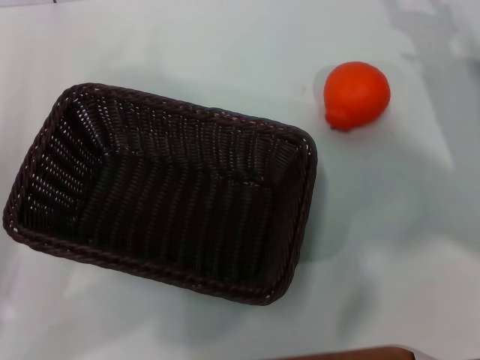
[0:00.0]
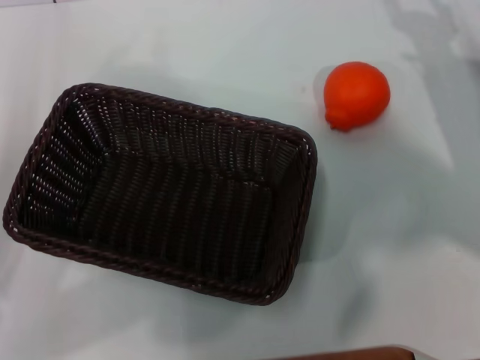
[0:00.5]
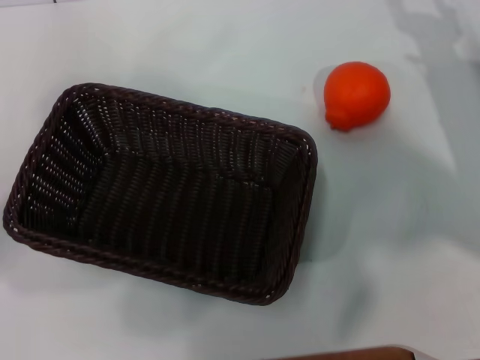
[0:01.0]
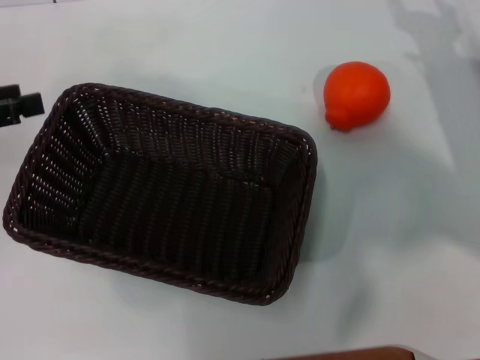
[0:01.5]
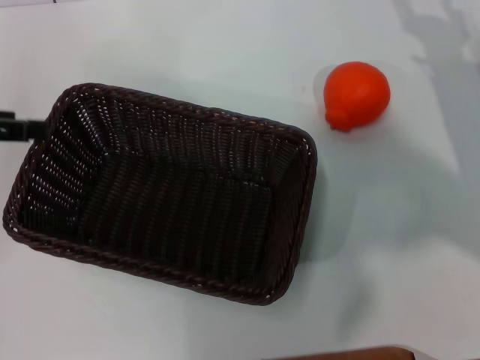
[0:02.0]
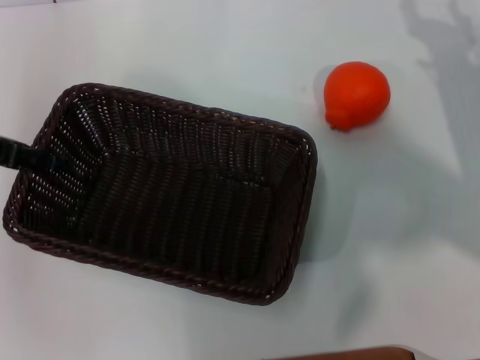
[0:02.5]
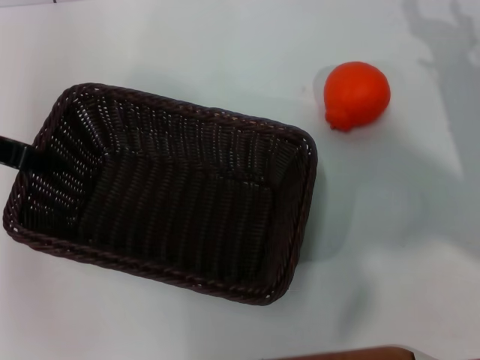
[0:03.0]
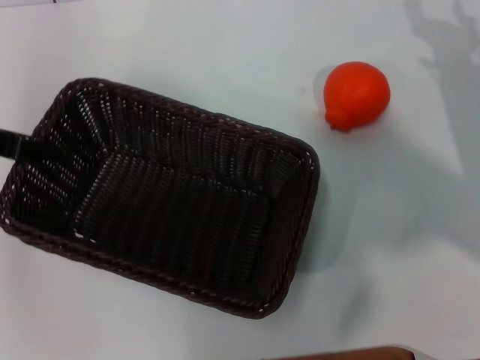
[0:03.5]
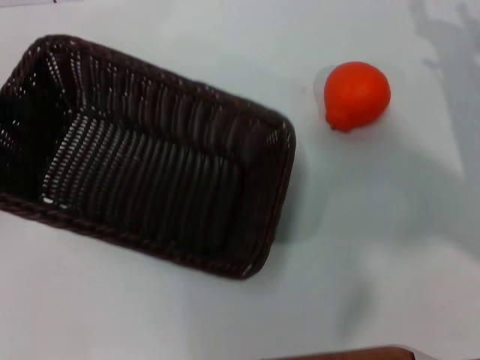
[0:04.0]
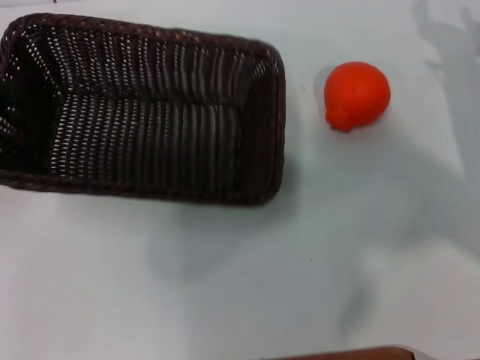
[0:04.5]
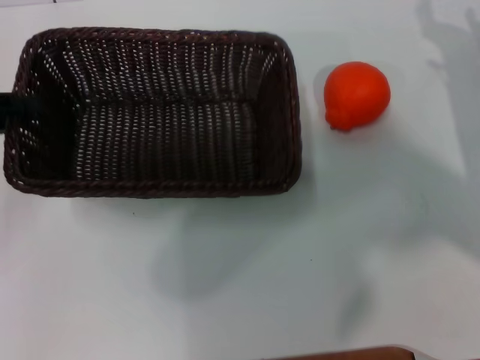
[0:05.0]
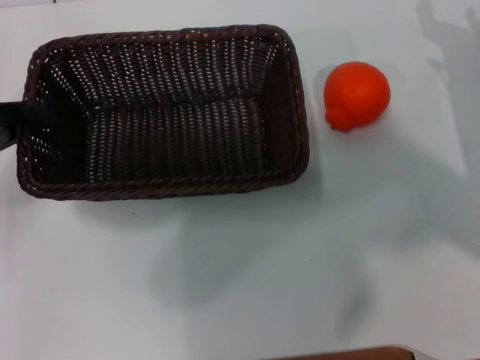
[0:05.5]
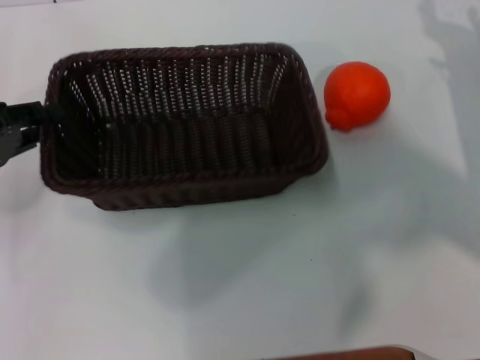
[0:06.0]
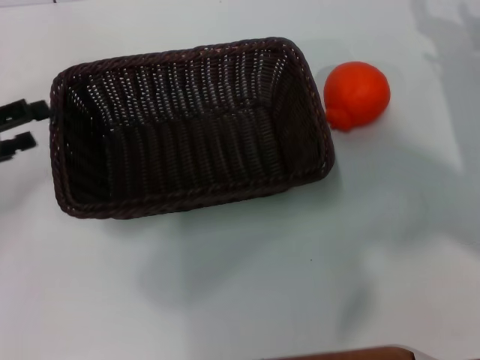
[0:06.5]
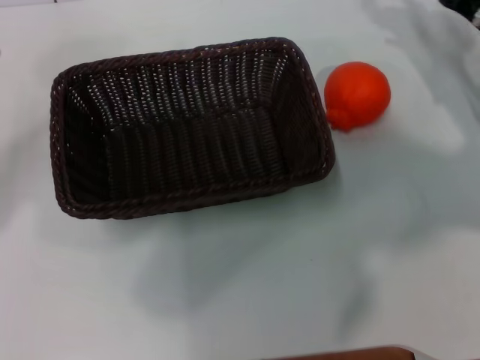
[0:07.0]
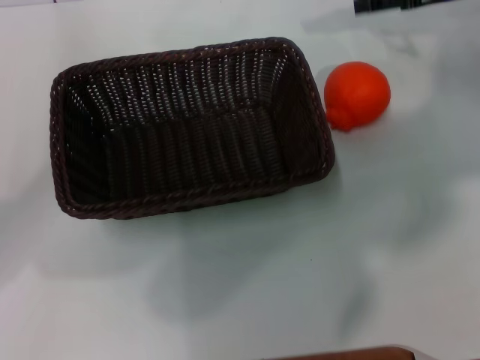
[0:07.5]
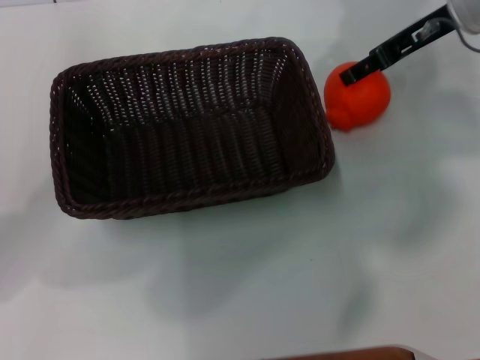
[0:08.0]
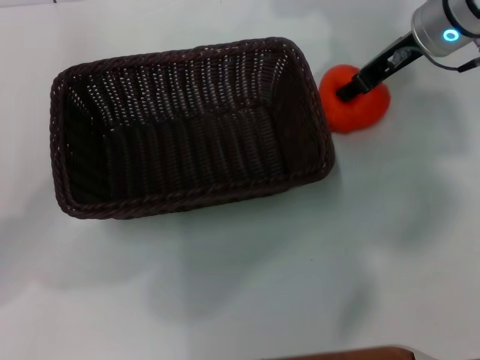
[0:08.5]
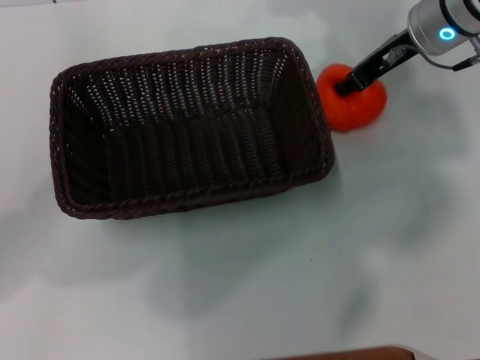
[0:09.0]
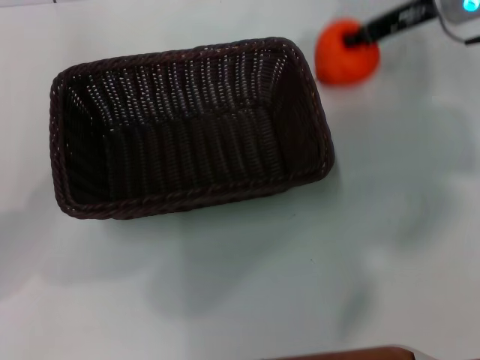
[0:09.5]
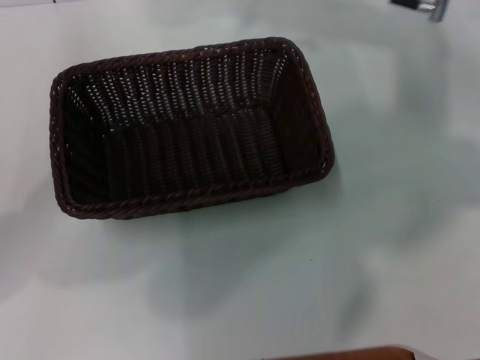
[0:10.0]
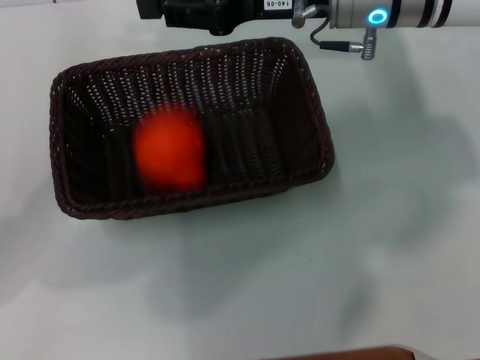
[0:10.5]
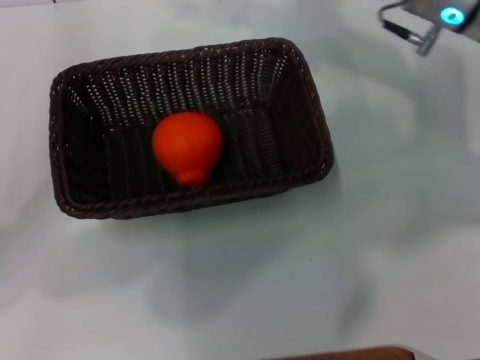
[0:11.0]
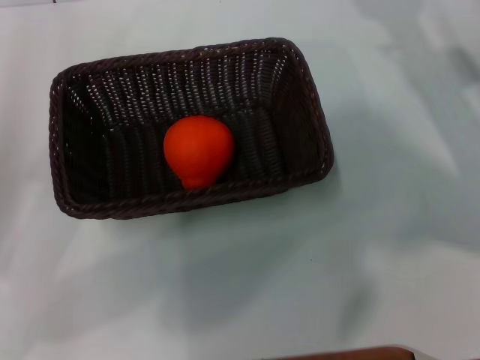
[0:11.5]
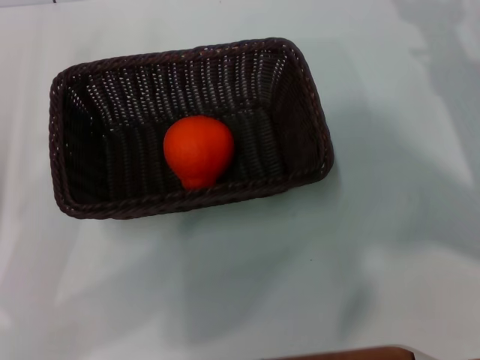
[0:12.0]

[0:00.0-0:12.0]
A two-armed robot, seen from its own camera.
Task of the whole recording: the left gripper pick up the black basket and place it horizontally in the middle of the table, the right gripper pick up the orange and place it into the black basket.
Step, 0:00.0 to 0:04.0: Pick up the dark basket with the left gripper.
Step, 0:04.5 to 0:06.5: Place the dark basket in the center of view with the left gripper.
Step, 0:07.0 to 0:09.5: Pick up the orange with the right gripper.
Step, 0:10.0 to 0:10.5: Place the dark basket in the center of view with the right gripper.
0:00.0 to 0:02.0: The left gripper shifts approximately 15 cm upward and forward, and opens.
0:02.0 to 0:04.0: The left gripper closes its fingers.
0:04.0 to 0:06.0: The left gripper shifts some 10 cm downward.
0:06.0 to 0:08.0: The right gripper heads upward, forward and to the left, covering some 20 cm. Meanwhile the left gripper opens up.
0:08.0 to 0:10.0: The right gripper moves to the left, roughly 5 cm, and closes.
0:10.0 to 0:12.0: The right gripper moves to the right, downward and backward, approximately 20 cm, and opens its fingers. The left gripper goes some 5 cm backward.

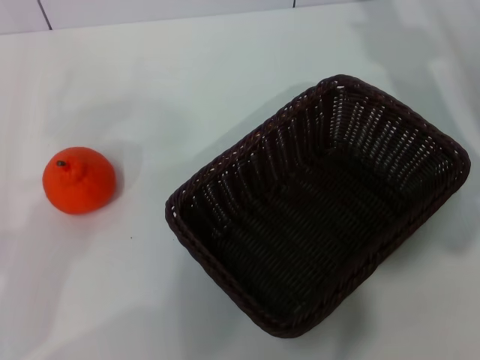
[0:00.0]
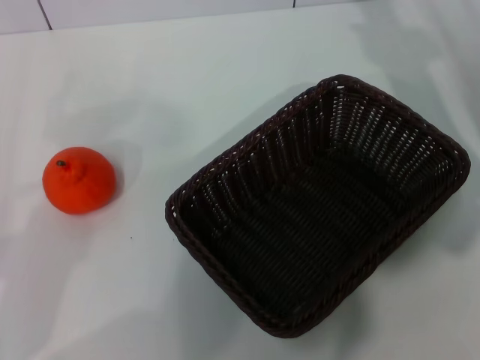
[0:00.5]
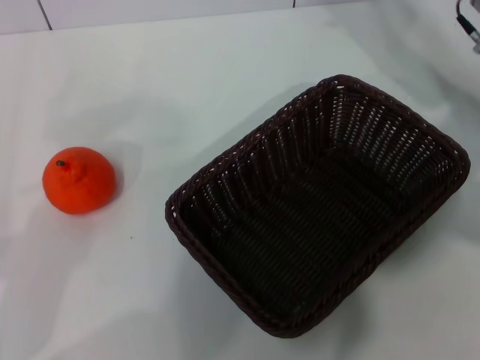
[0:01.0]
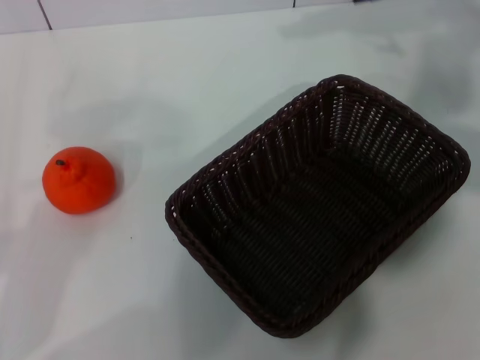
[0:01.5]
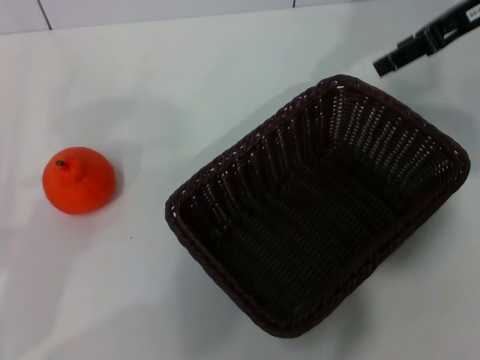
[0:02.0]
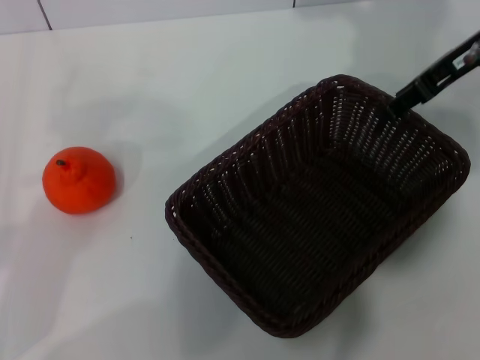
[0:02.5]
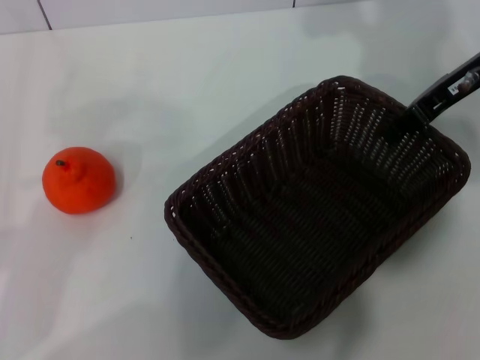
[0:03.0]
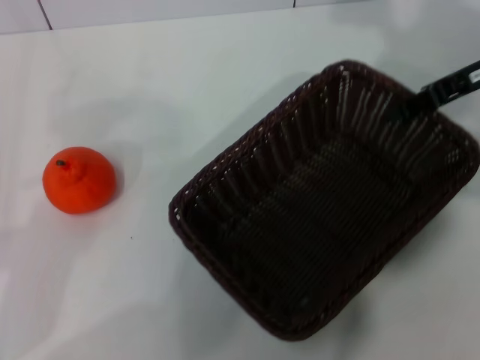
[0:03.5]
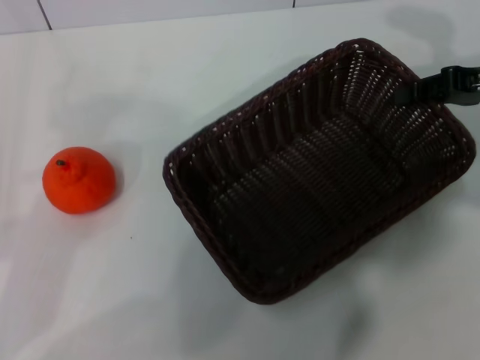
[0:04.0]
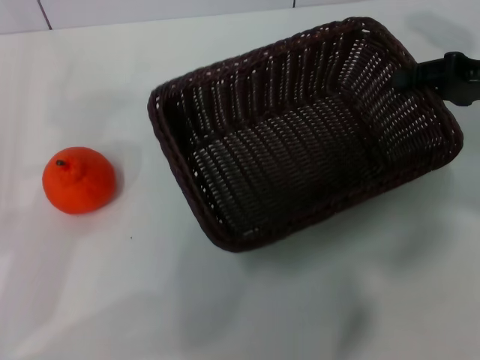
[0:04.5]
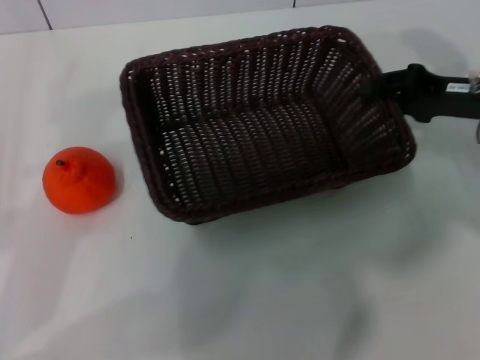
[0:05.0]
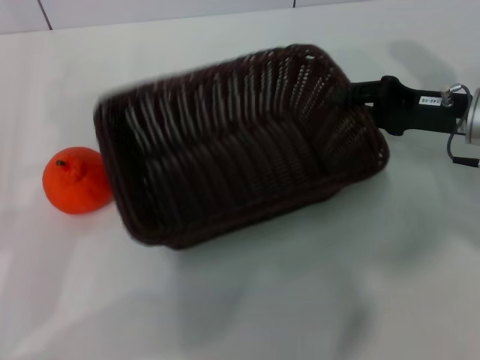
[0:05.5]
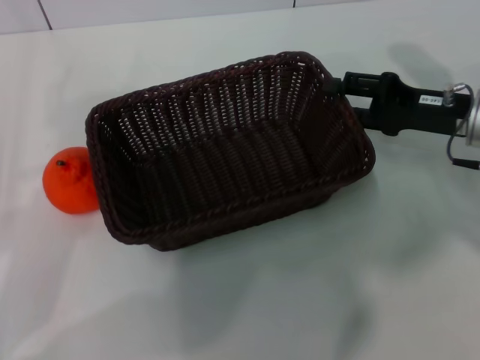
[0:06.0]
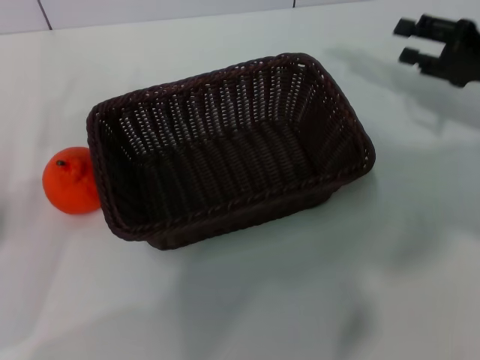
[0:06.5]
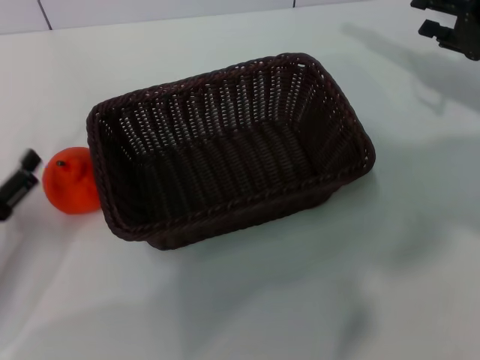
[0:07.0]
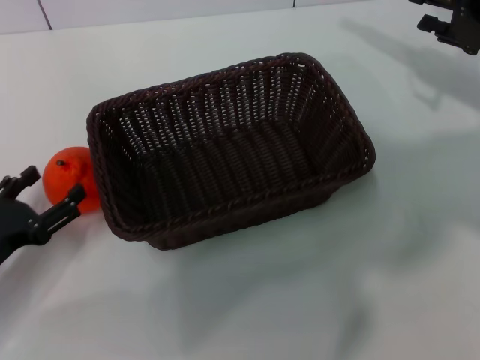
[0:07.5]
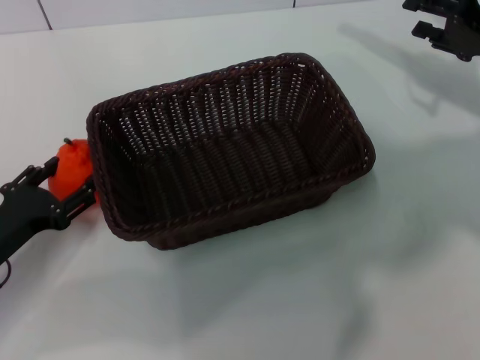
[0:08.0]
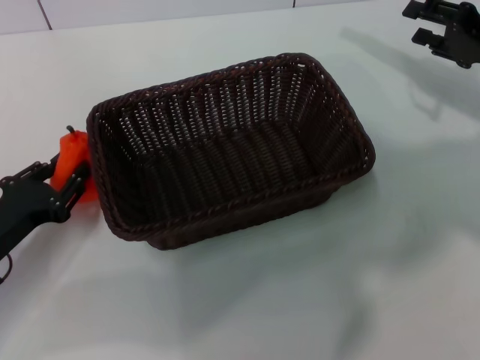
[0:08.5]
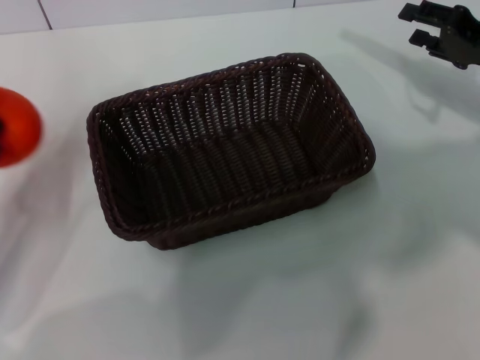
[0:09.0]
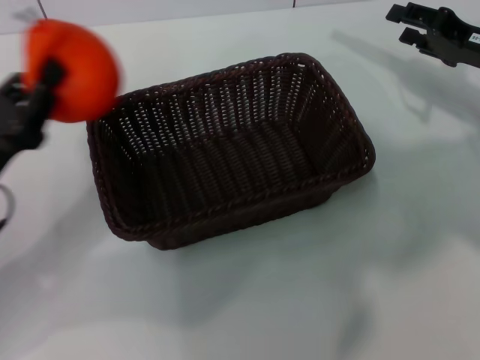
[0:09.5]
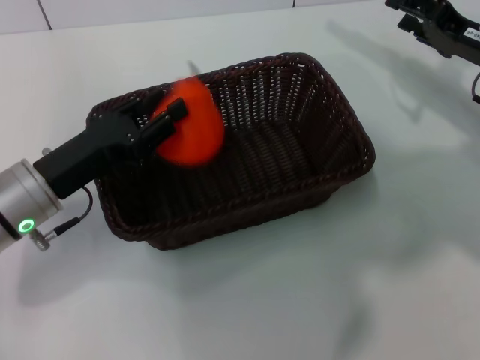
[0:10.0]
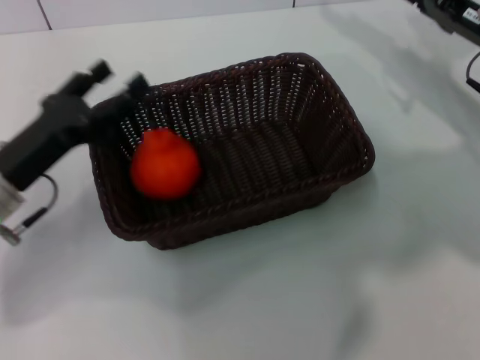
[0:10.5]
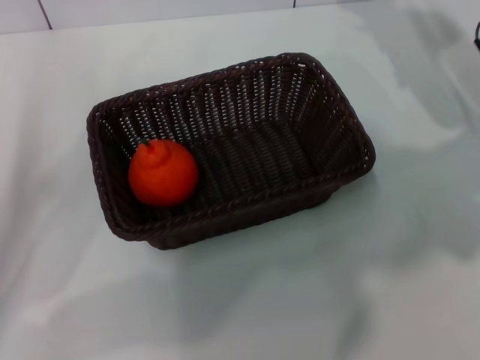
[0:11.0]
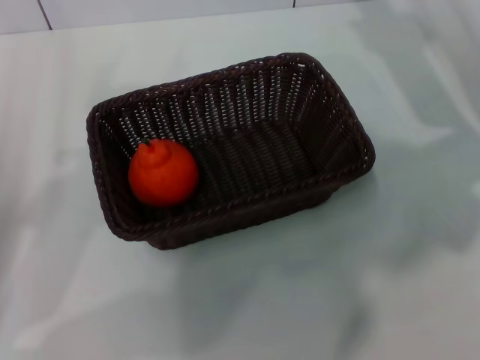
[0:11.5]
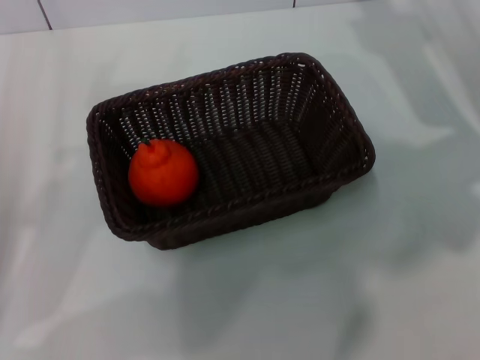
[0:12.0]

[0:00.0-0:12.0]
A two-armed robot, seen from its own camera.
Task of the whole recording: the right gripper pick up the black basket and place it horizontally in the middle of the table, the left gripper pick up the orange and place it into the black basket.
Step, 0:00.0 to 0:03.5: Pick up the dark basket with the right gripper.
Step, 0:04.0 to 0:06.0: Place the dark basket in the center of view with the right gripper.
Step, 0:06.5 to 0:09.0: Pick up the orange with the left gripper.
Step, 0:09.5 to 0:10.0: Place the orange into the dark basket with the left gripper.
0:00.0 to 0:02.0: The right gripper is displaced upward by roughly 10 cm.
0:02.0 to 0:04.0: The right gripper moves downward and to the right, roughly 10 cm, and closes up.
0:04.0 to 0:06.0: The right gripper heads downward and to the left, covering roughly 10 cm, and opens up.
0:06.0 to 0:08.0: The right gripper shifts approximately 5 cm to the right, while the left gripper is displaced downward by some 5 cm.
0:08.0 to 0:10.0: The left gripper goes roughly 10 cm to the right and upward, and closes.
0:10.0 to 0:12.0: The left gripper moves to the left and backward, roughly 10 cm, and opens its fingers.
